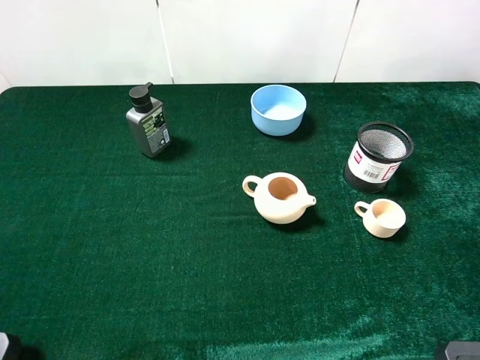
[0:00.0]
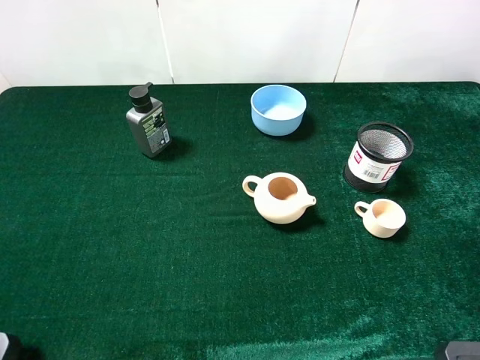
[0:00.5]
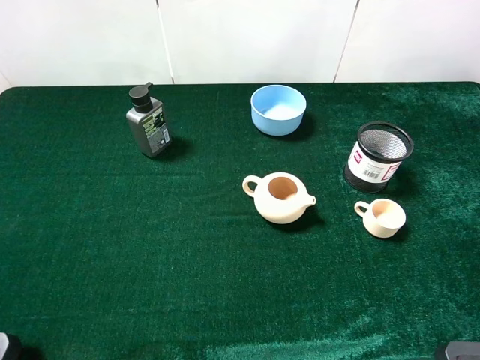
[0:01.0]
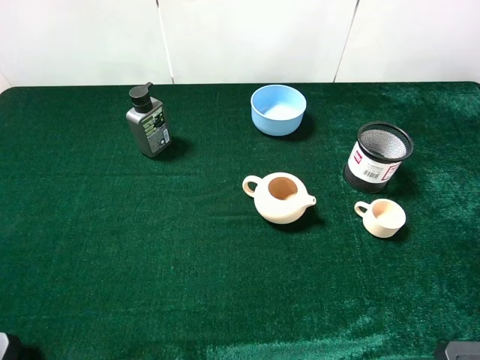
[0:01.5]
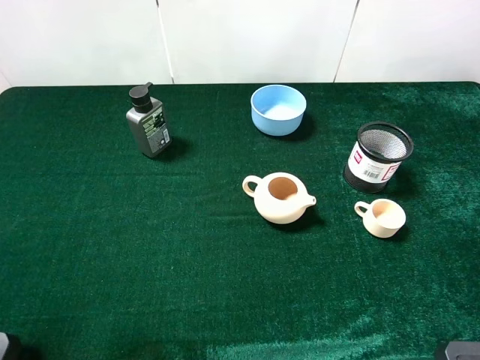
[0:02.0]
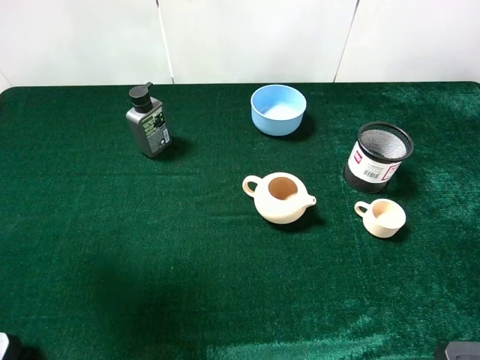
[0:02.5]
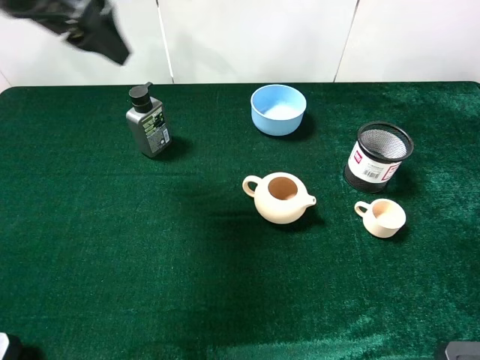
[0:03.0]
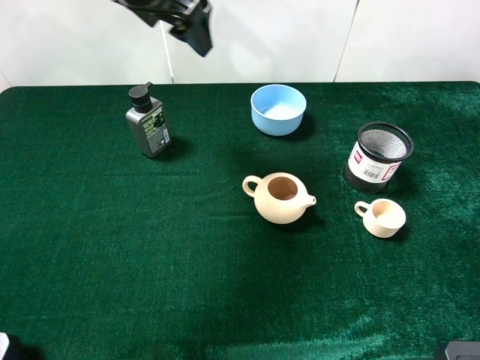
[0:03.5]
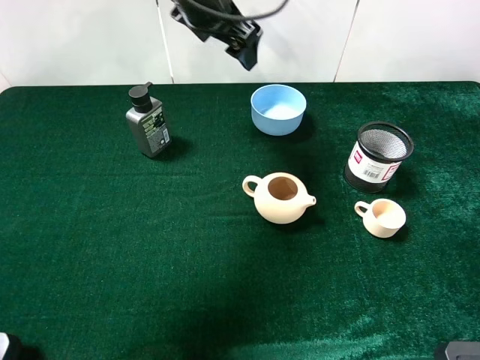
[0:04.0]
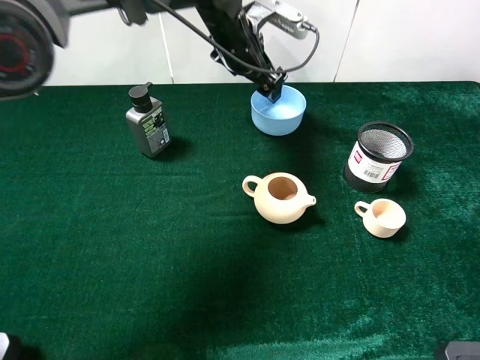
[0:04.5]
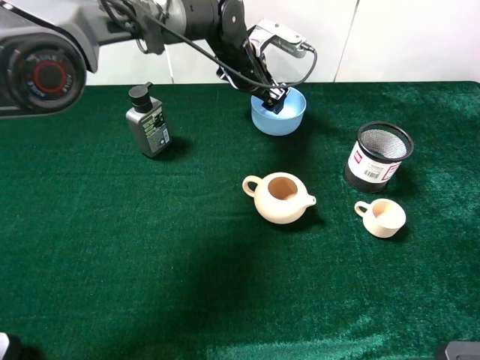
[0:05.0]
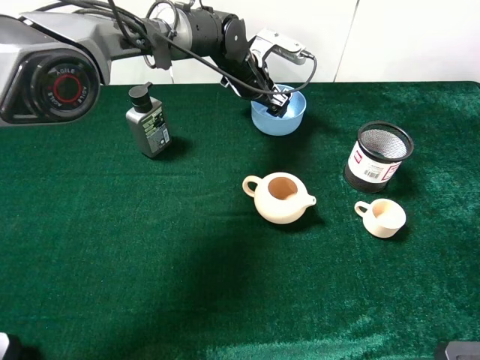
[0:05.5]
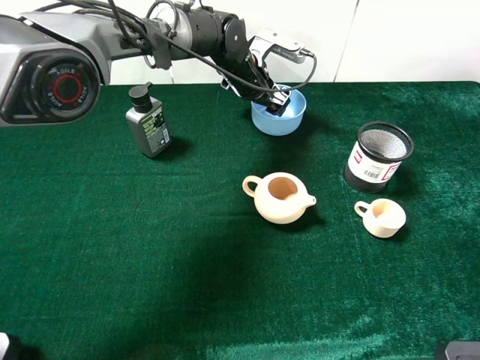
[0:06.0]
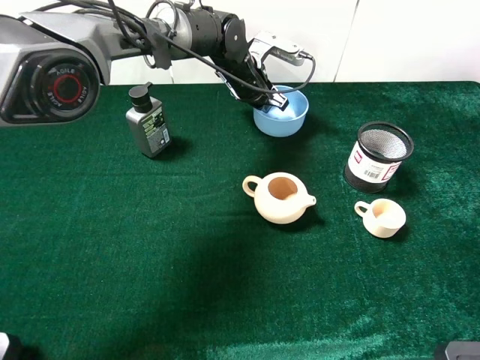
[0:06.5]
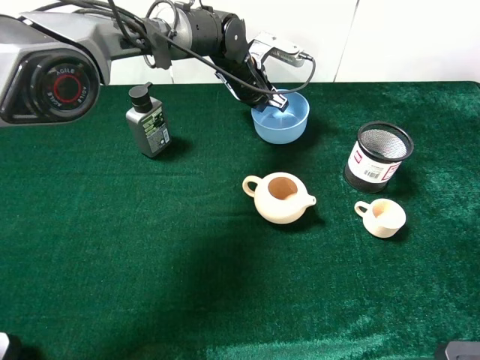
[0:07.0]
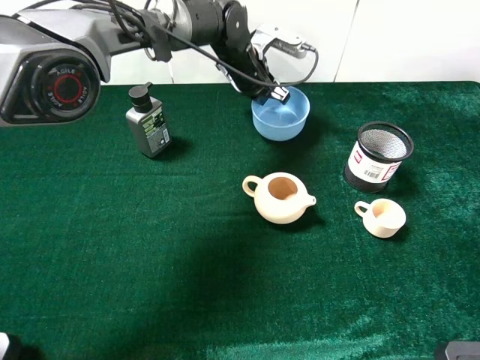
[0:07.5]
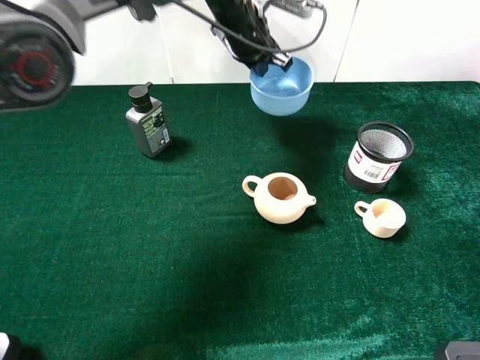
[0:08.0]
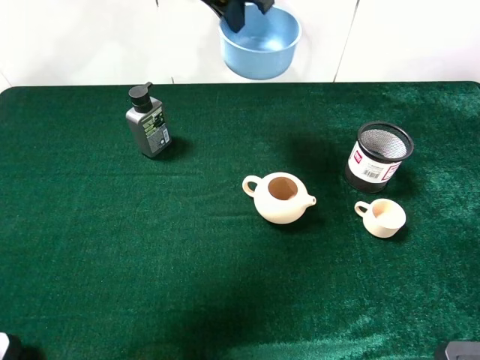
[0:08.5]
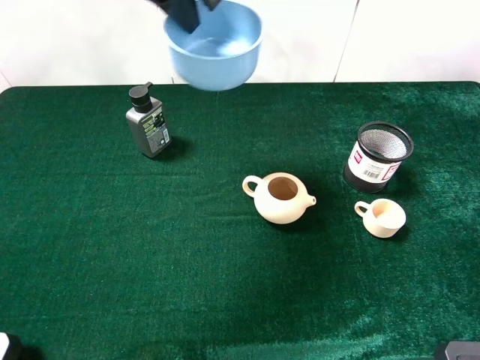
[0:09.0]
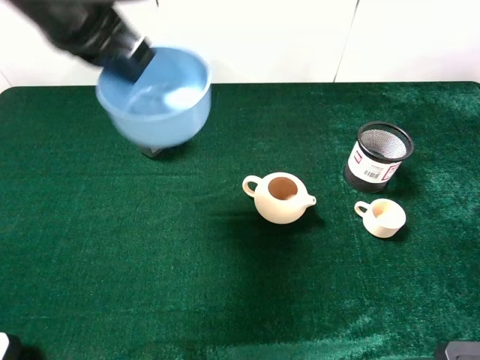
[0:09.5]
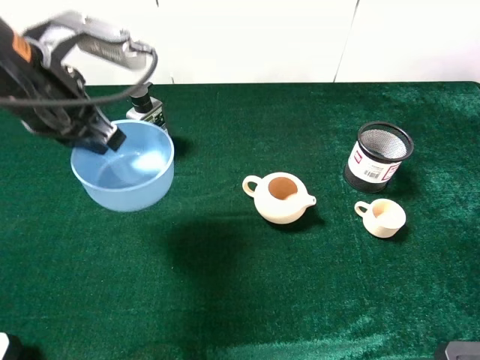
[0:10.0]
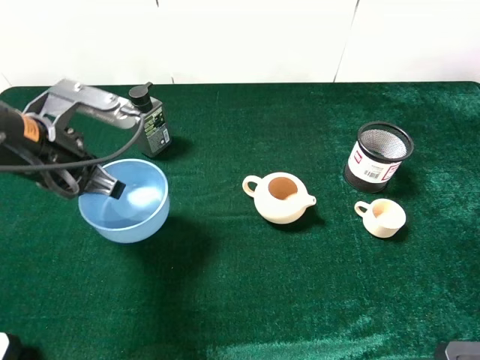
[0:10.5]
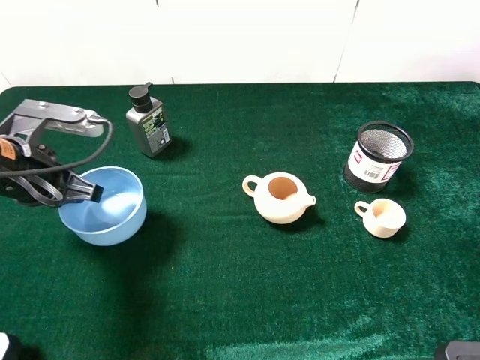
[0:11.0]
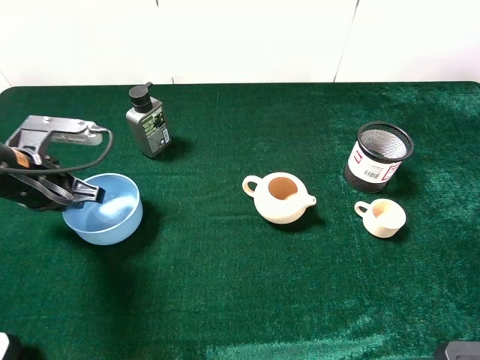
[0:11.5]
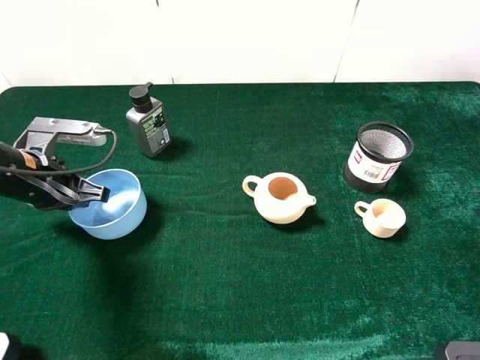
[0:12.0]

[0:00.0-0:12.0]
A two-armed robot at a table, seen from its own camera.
Task of the whole recording: the gripper move the object.
Step, 0:00.0 to 0:06.5: Grasp the blue bowl with the left gripper.
0:02.0 to 0:04.0: The left gripper travels forward and to the right by about 40 cm.
0:04.0 to 0:06.0: The left gripper heads downward and to the right, covering approximately 15 cm.
0:06.0 to 0:08.0: The left gripper travels upward by some 5 cm, and closes its fingers.
0:08.0 to 0:10.0: The left gripper travels backward and to the left by about 30 cm.
0:10.0 to 0:12.0: The left gripper is displaced downward and to the left by approximately 15 cm.

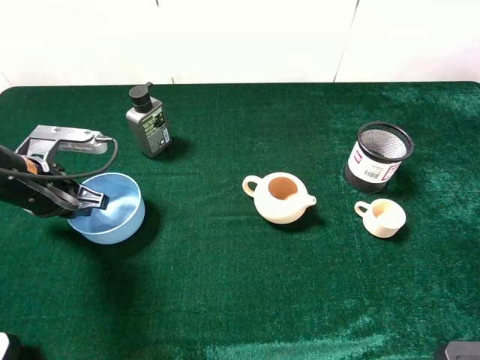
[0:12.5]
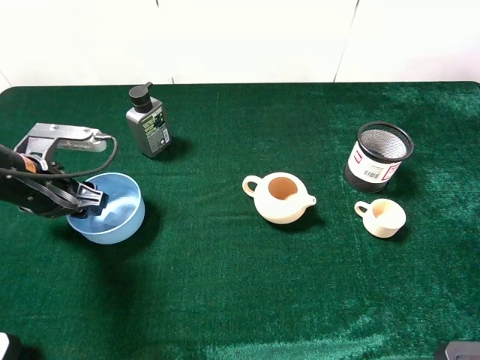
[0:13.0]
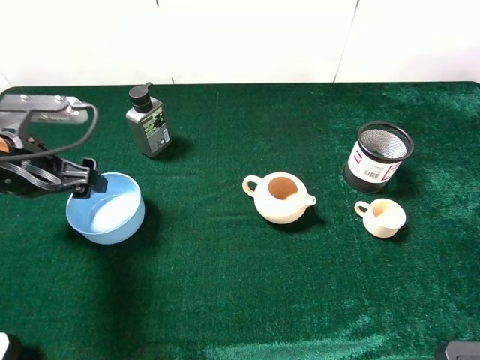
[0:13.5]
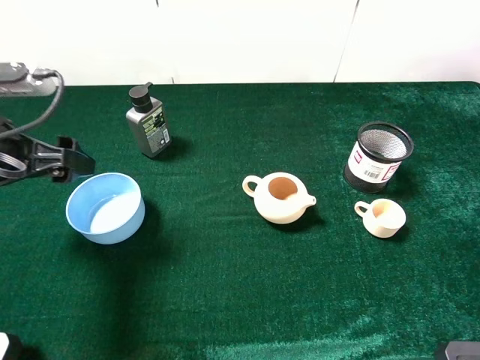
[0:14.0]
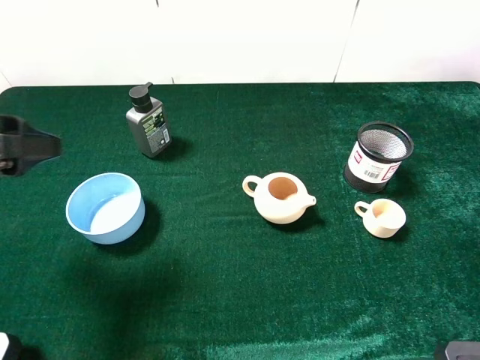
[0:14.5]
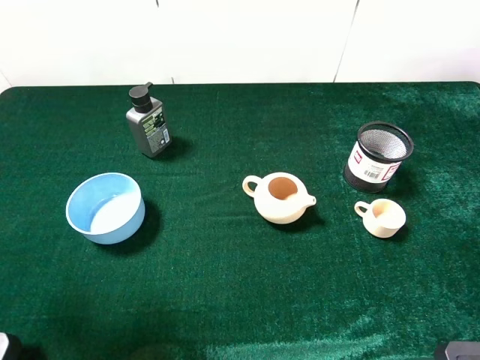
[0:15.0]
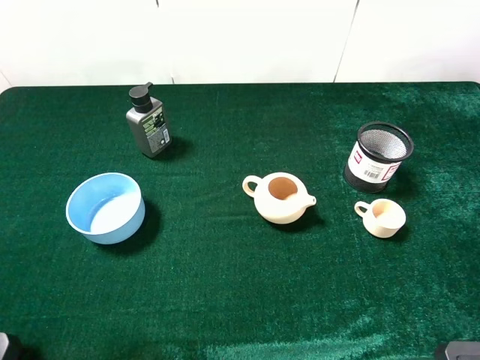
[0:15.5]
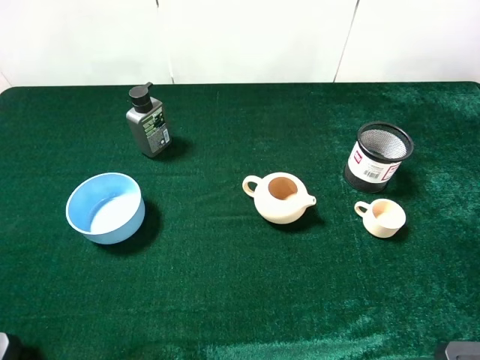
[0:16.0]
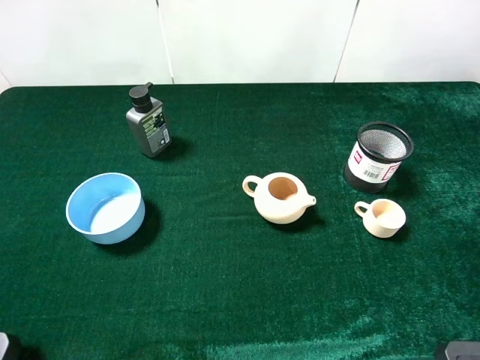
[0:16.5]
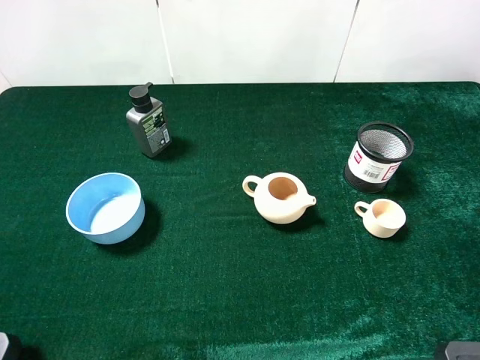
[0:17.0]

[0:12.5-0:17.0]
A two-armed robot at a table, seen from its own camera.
Task of the whole recording: the gripper move the object.
0:12.5 to 0:14.5: The left gripper travels upward and backward by about 15 cm, and opens its fingers.
0:14.5 to 0:17.0: The left gripper heads backward, covering some 15 cm.
